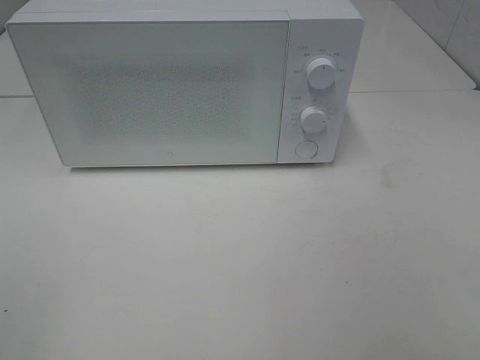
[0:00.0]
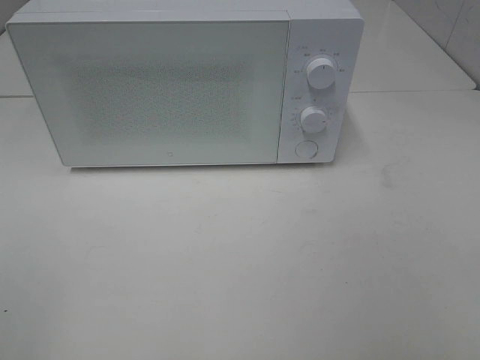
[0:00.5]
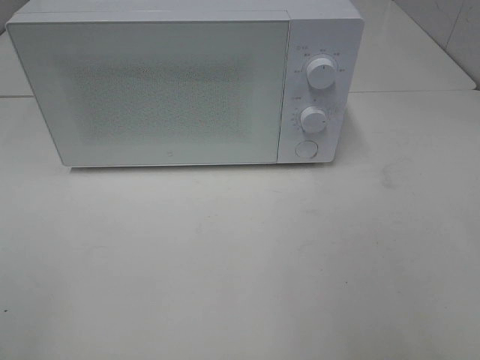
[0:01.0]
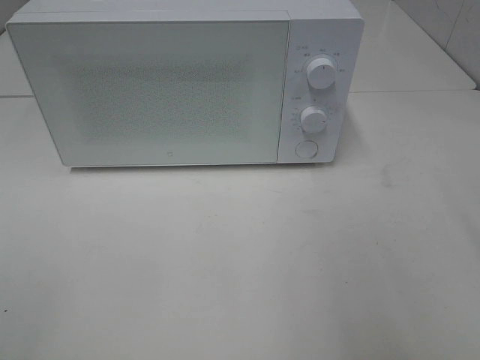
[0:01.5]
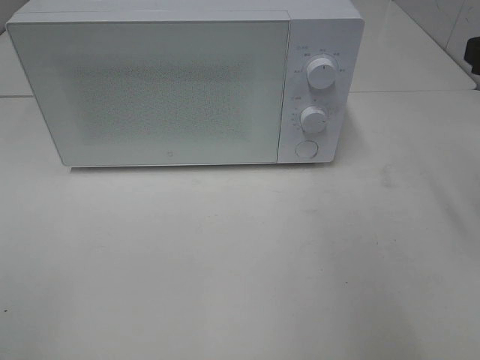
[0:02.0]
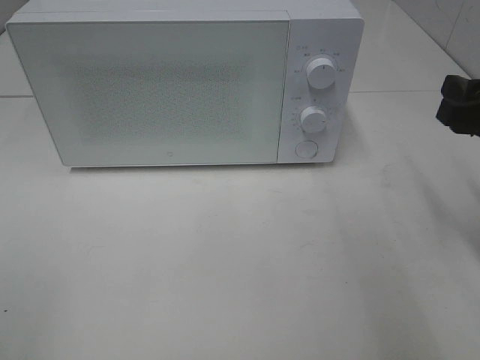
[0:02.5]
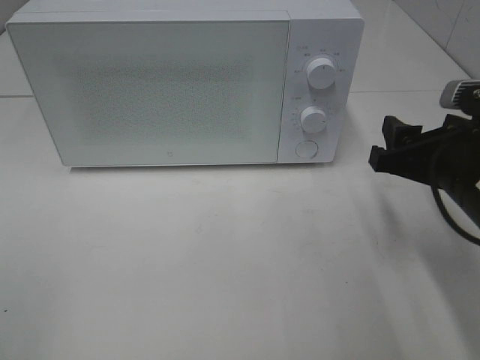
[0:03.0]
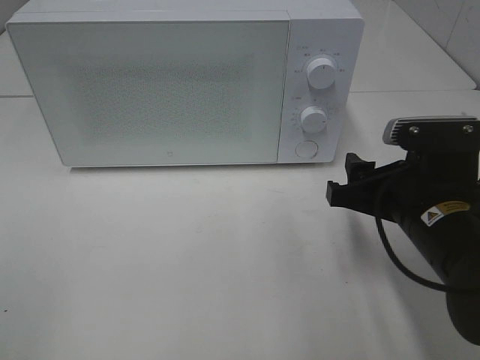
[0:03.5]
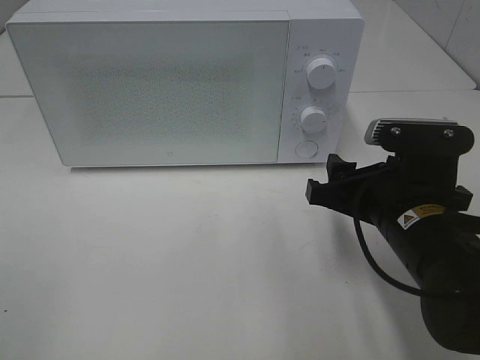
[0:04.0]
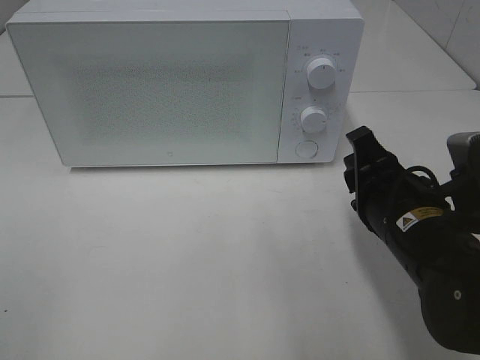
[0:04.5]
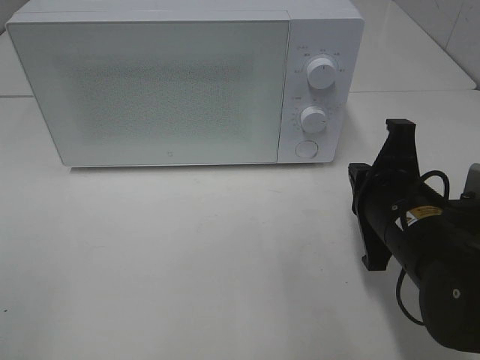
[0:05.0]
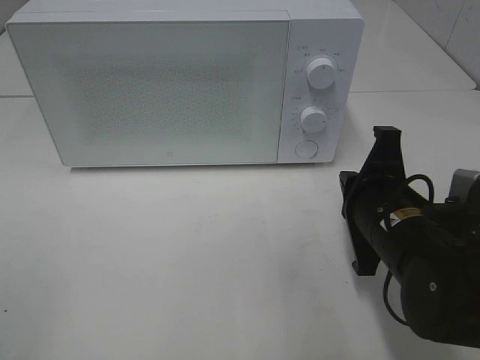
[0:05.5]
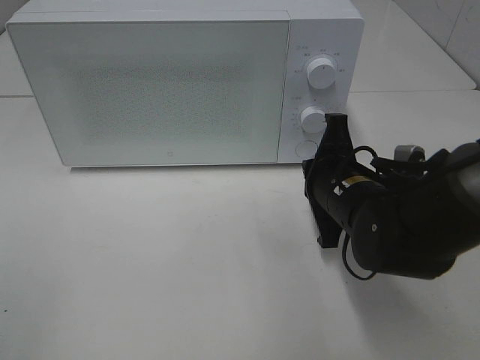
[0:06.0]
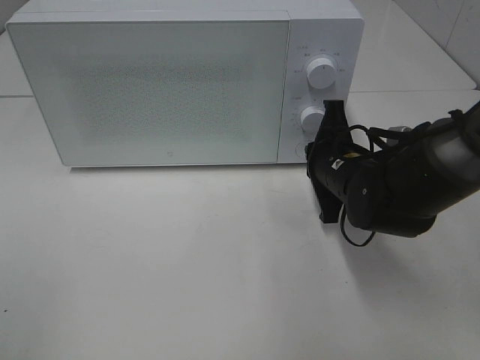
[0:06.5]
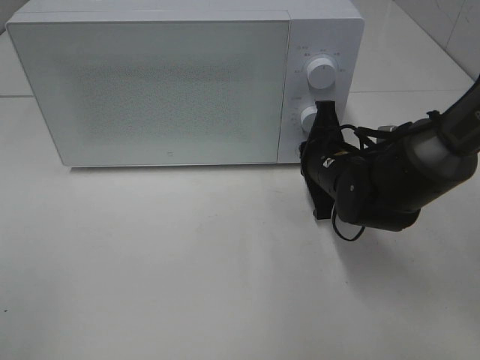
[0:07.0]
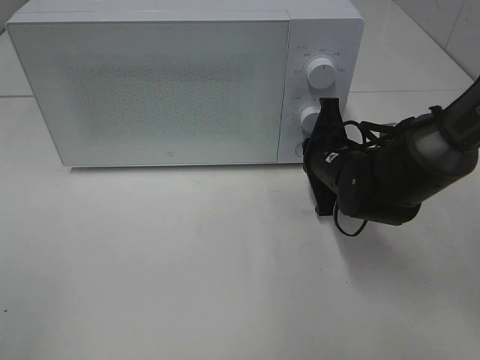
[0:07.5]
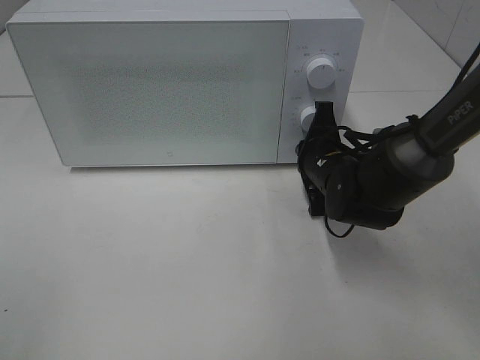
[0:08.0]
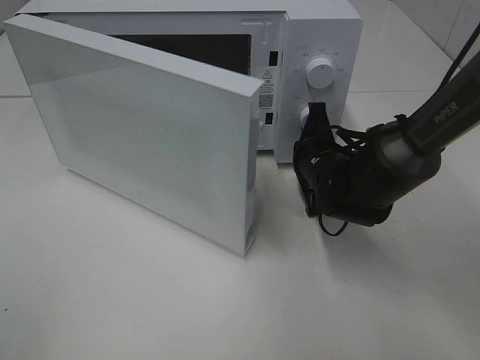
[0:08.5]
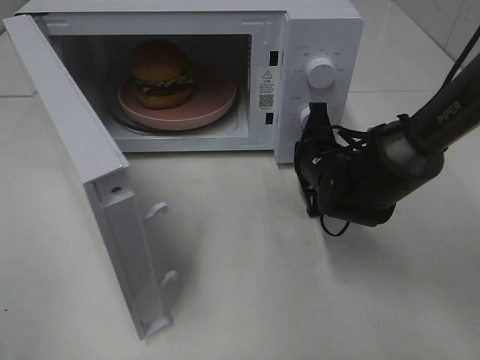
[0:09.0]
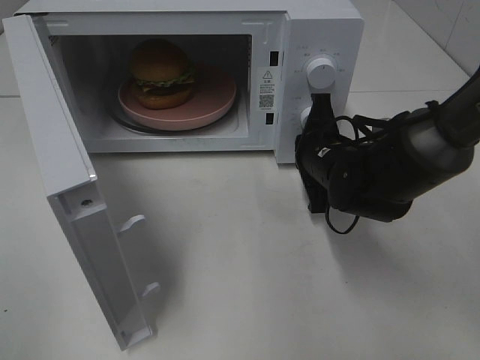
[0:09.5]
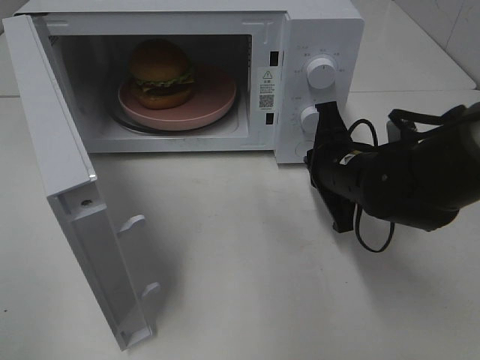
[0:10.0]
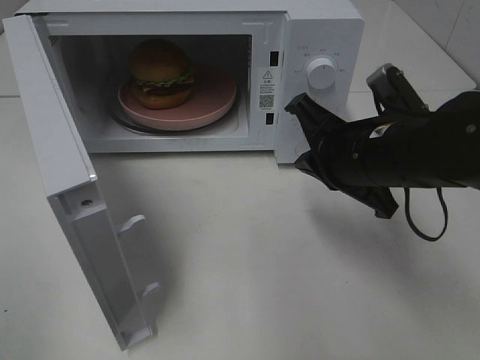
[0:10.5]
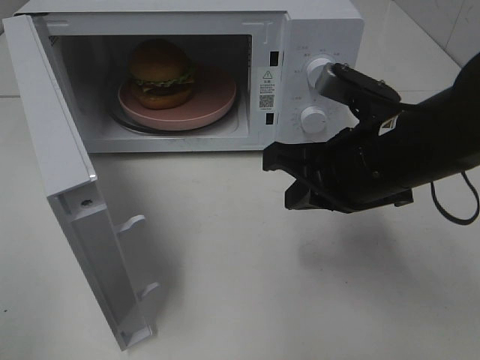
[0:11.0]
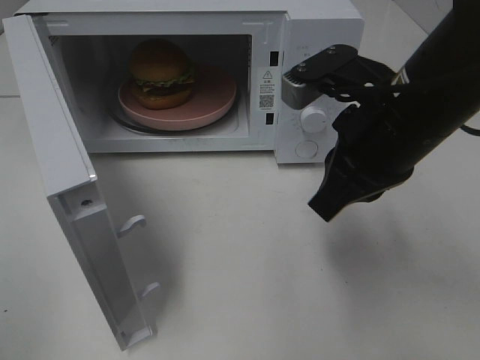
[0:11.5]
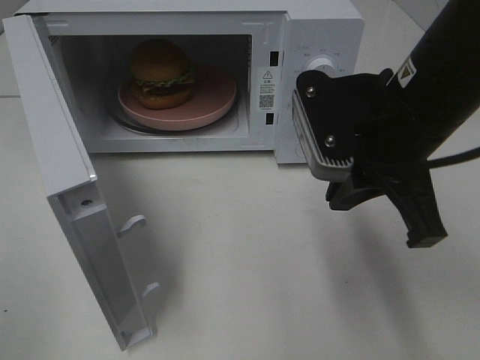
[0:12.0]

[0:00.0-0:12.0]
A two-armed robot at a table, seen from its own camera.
Task of the whole recording: Heat the burger.
Step, 0.0 to 10.0 s: Right hand: press the switch.
2.0 to 4.0 s: The right gripper goes roughly 20 cm downward and to the left.
4.0 to 6.0 s: The right gripper goes approximately 5 cm forward, and closes its fingers.
6.0 to 8.0 s: The right gripper travels forward by roughly 10 cm.
8.0 to 10.0 s: The right gripper is displaced backward by some 5 cm.
10.0 to 12.0 s: The right gripper goes roughly 15 cm upward and backward.

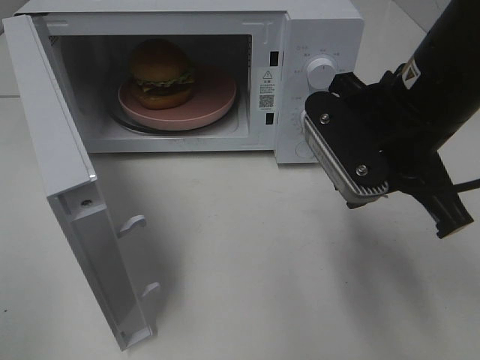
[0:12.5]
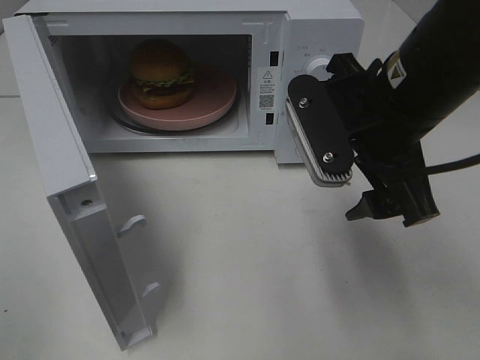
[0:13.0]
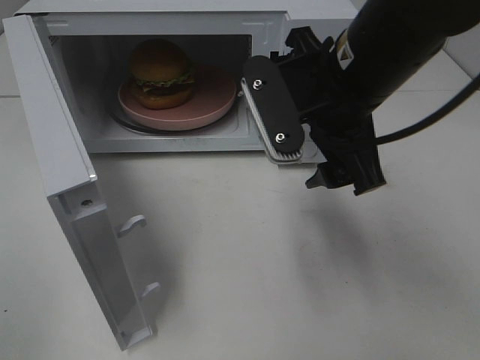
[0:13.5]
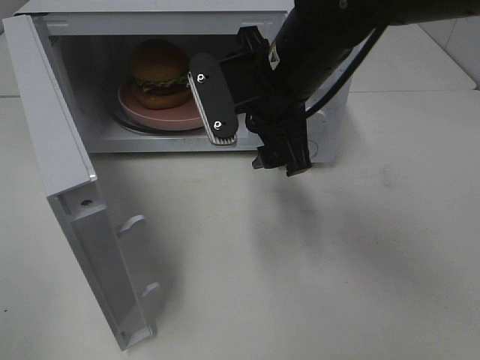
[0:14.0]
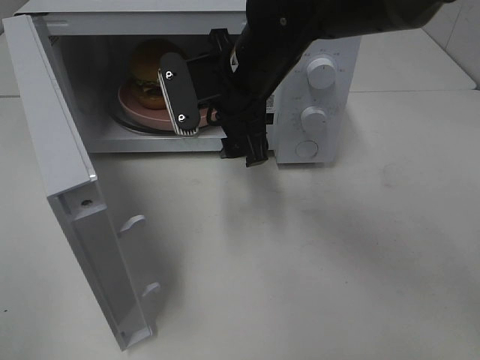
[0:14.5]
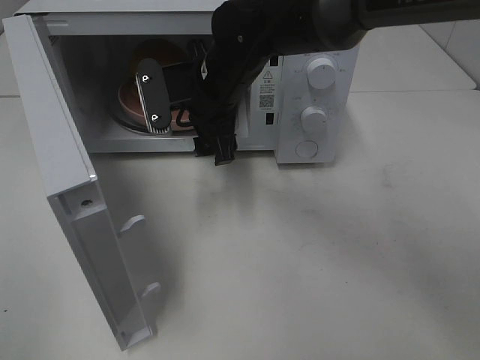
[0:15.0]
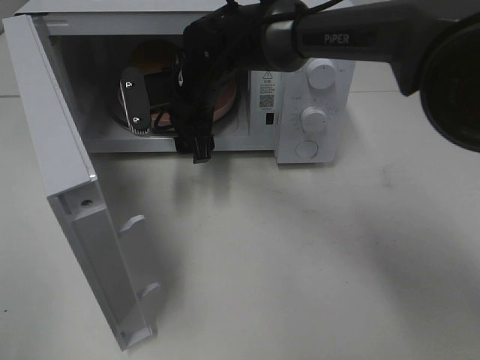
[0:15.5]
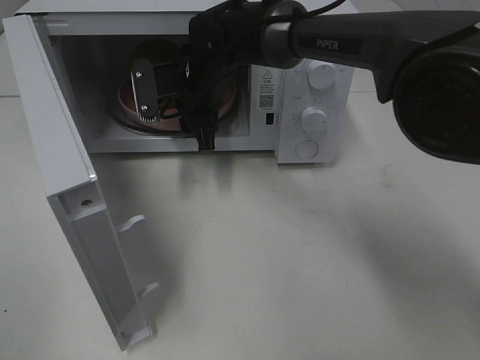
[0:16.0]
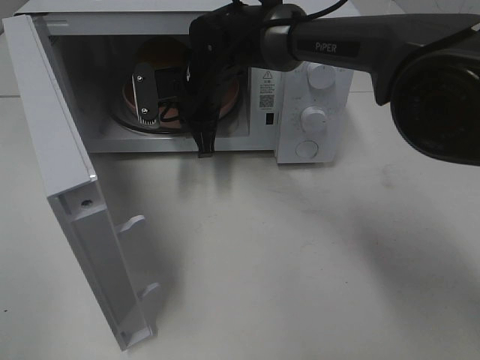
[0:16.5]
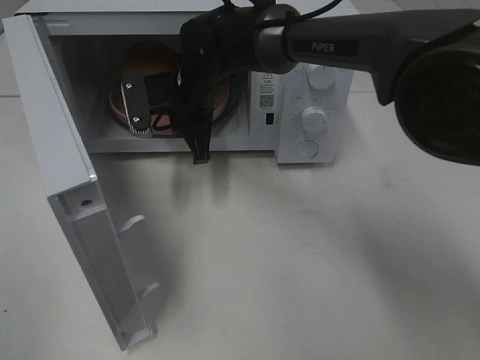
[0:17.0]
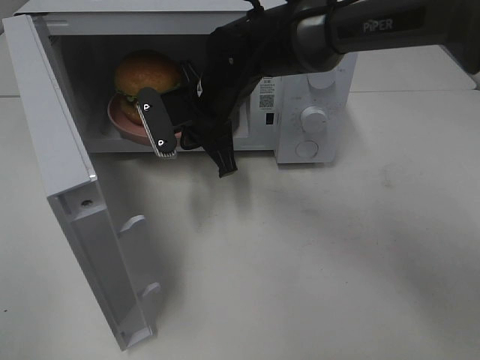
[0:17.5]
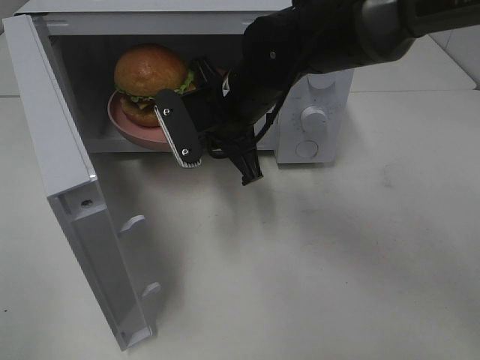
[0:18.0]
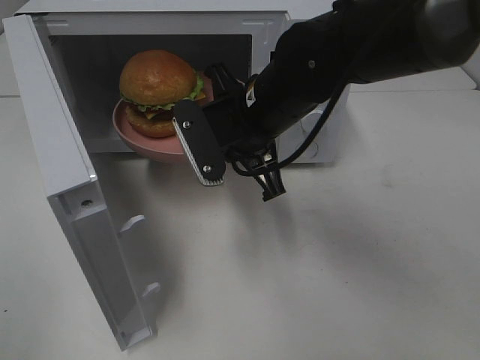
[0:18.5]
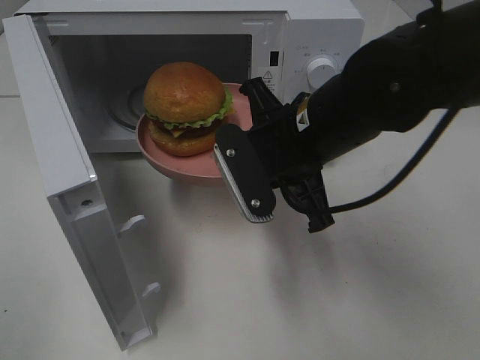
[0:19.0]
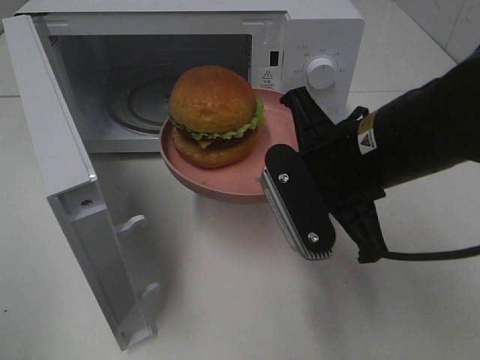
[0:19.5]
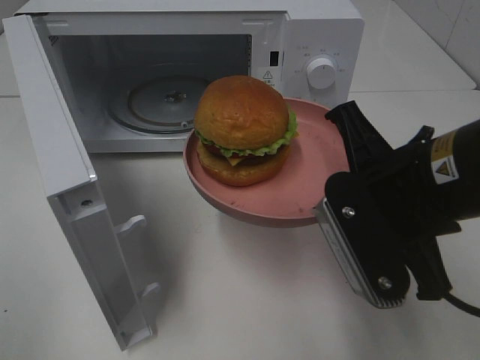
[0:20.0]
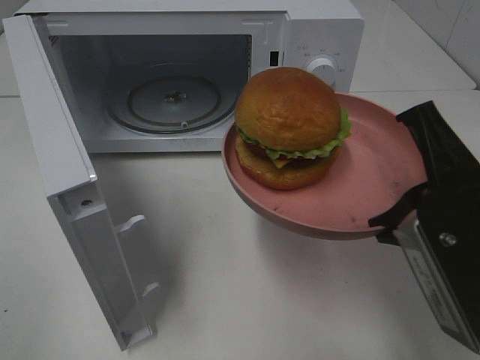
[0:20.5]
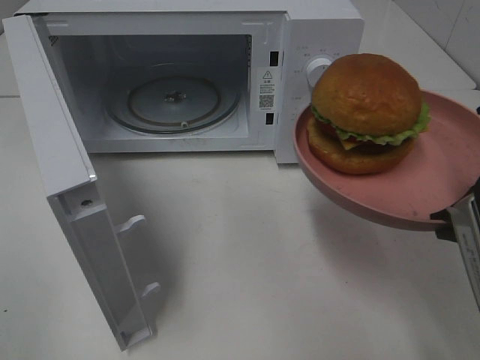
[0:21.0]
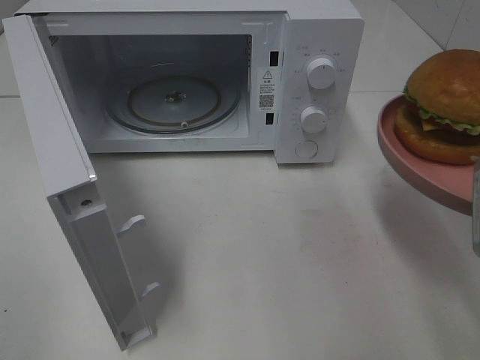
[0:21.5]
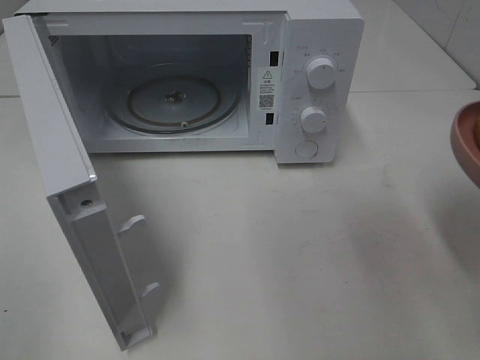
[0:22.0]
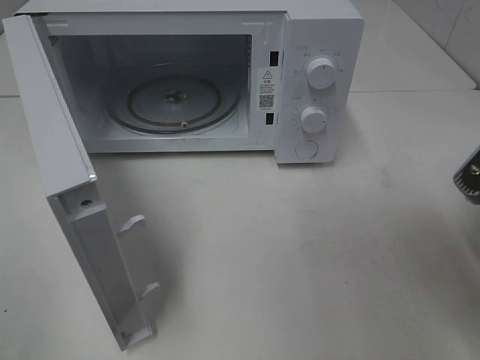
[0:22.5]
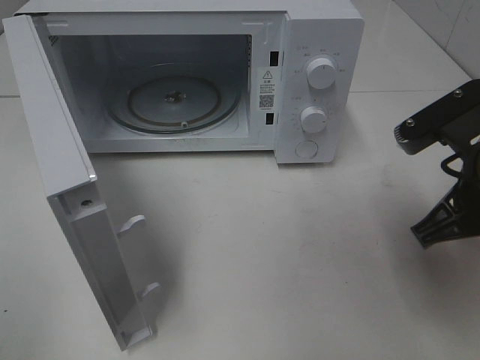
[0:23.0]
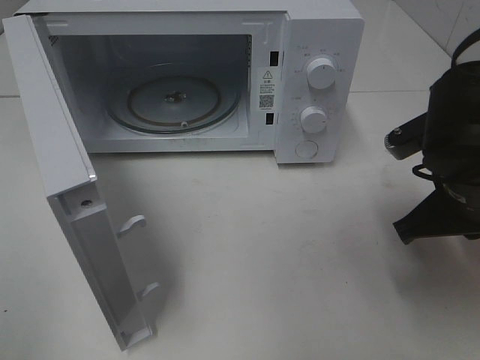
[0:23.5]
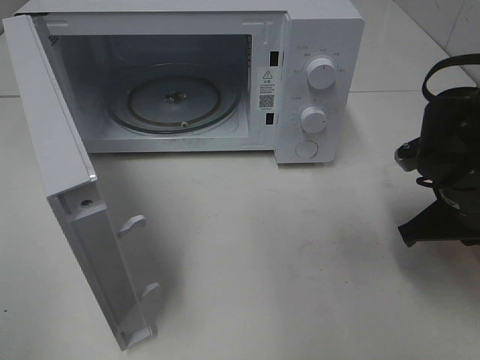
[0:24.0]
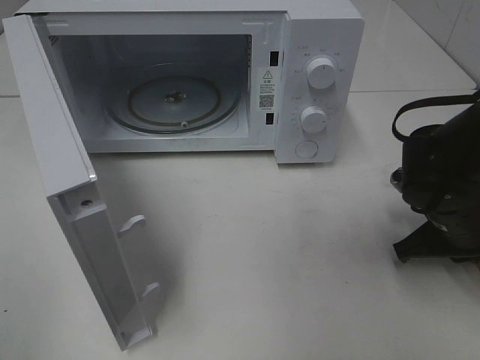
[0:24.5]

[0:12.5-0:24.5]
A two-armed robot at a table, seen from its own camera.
Task of the whole recording: Heat the burger.
Step, 12.5 to 16.5 s: Right hand: grab the plate with the hamburger.
12.5 to 14.5 s: The right gripper goes about 15 cm to the left and forward, and opens.
14.5 to 16.5 s: The right gripper shifts about 10 cm forward, downward and to the left, and closes its fingers.
16.5 to 18.5 s: The right gripper shifts approximately 15 cm backward and to the right.
18.5 to 20.5 s: The right gripper is displaced backward and to the right by approximately 20 cm.
20.5 to 22.5 s: The right gripper shifts some 5 cm to the right.
22.5 to 24.5 s: The right gripper goes roughly 15 cm downward and forward.

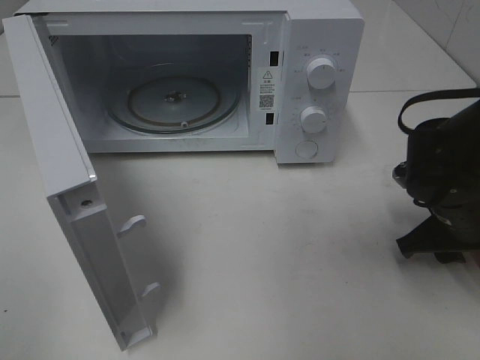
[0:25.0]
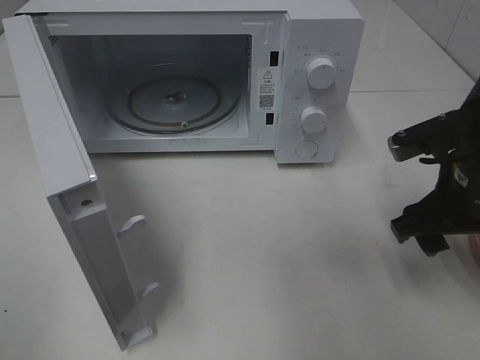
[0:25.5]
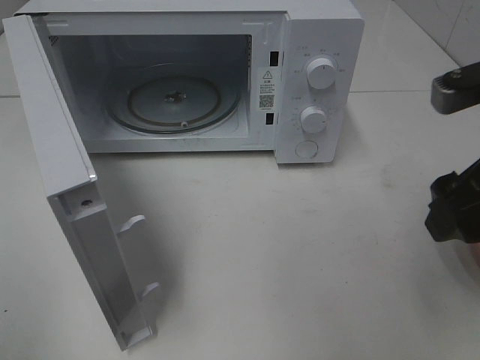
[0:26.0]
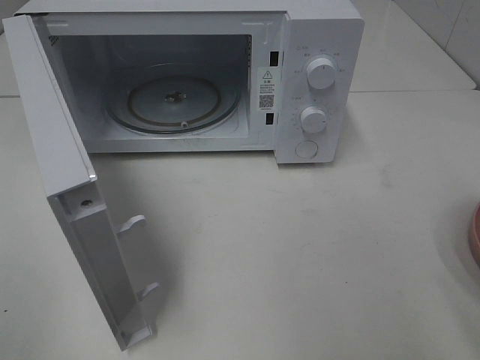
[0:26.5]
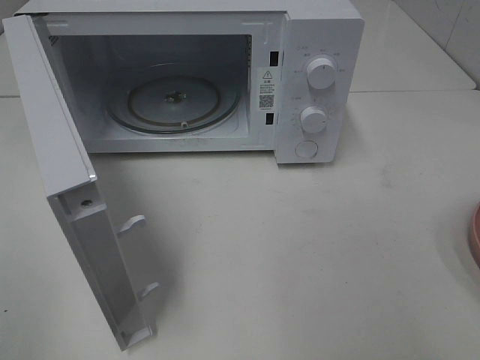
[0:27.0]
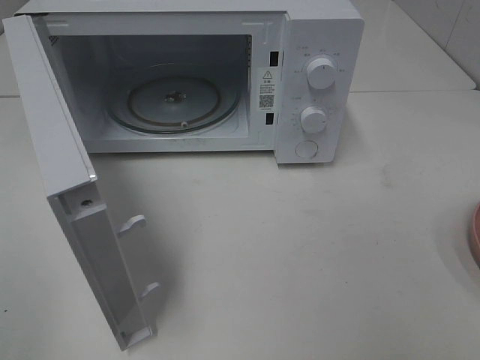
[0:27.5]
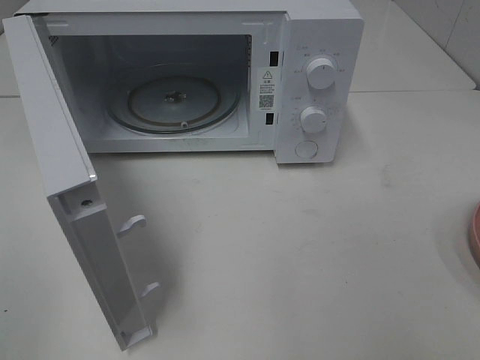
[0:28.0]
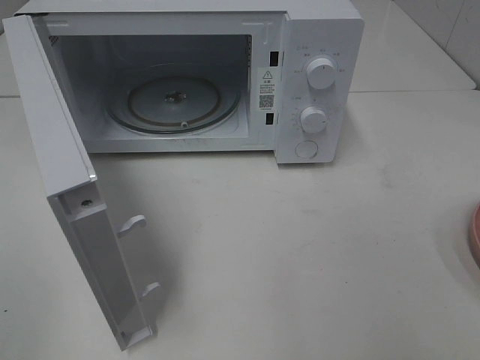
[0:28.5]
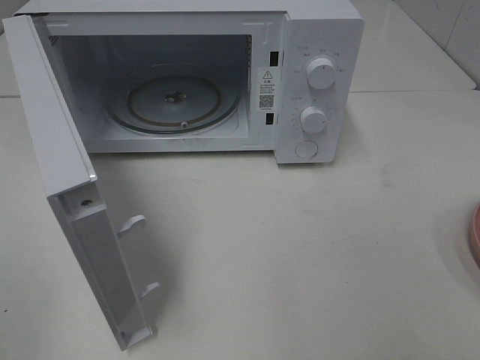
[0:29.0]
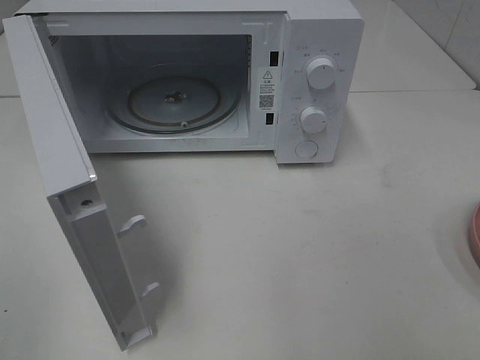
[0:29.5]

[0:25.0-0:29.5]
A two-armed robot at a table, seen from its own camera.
Task of the whole recording: Heat the burger.
25.0 to 27.0 s: The right gripper shifts roughly 30 cm upward and backward.
